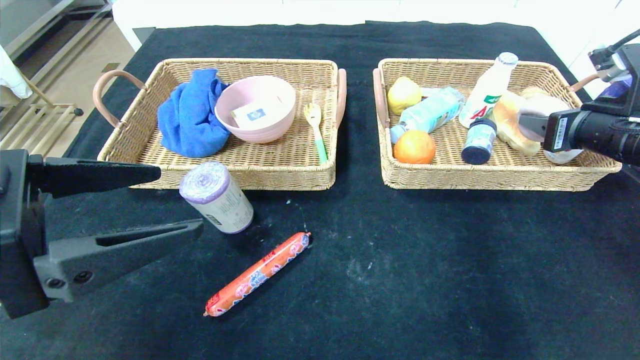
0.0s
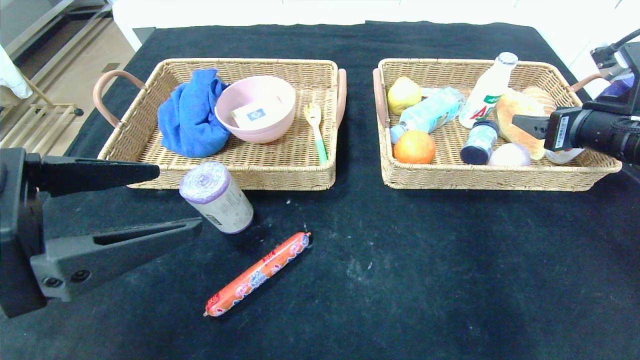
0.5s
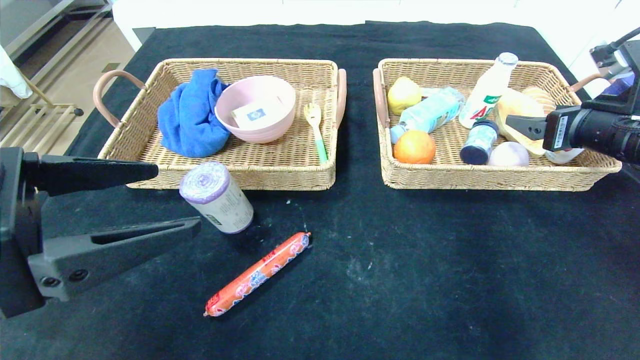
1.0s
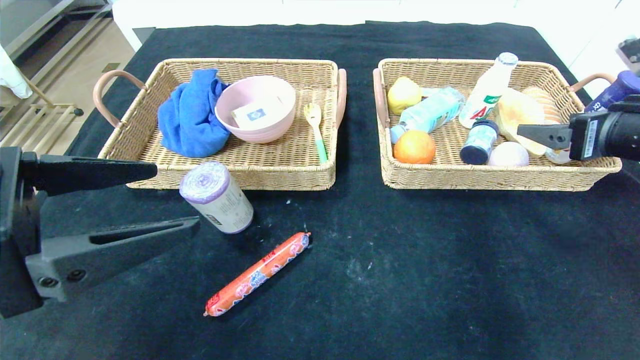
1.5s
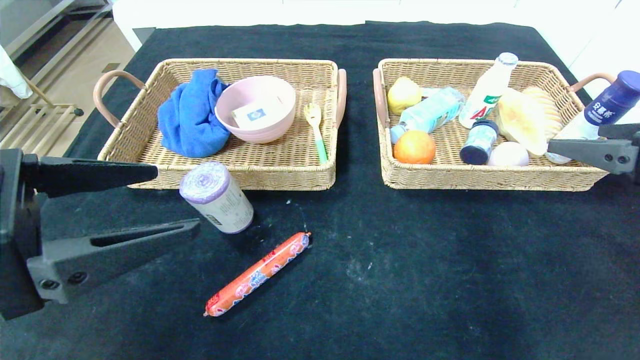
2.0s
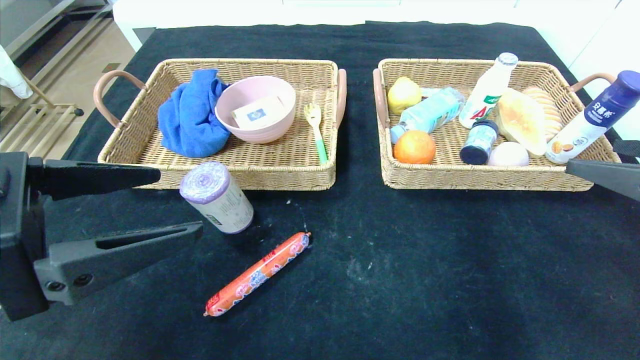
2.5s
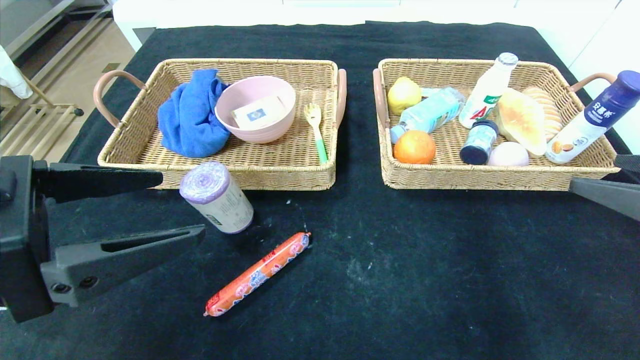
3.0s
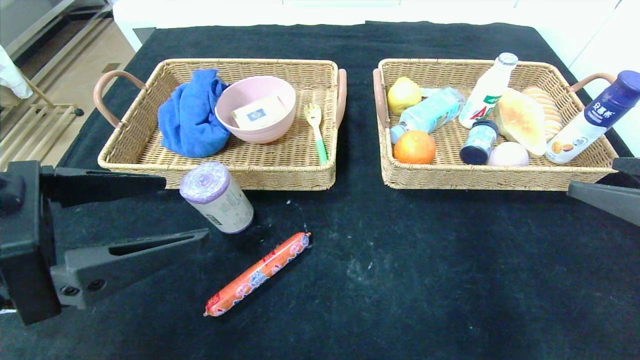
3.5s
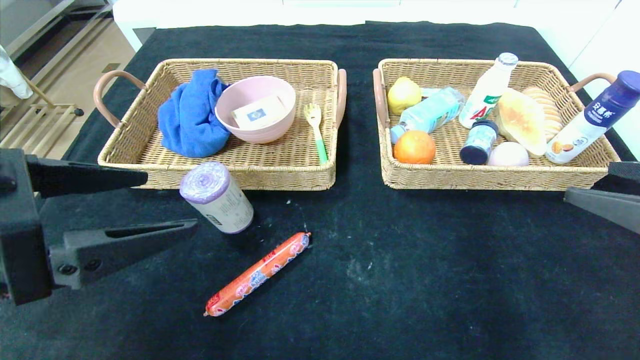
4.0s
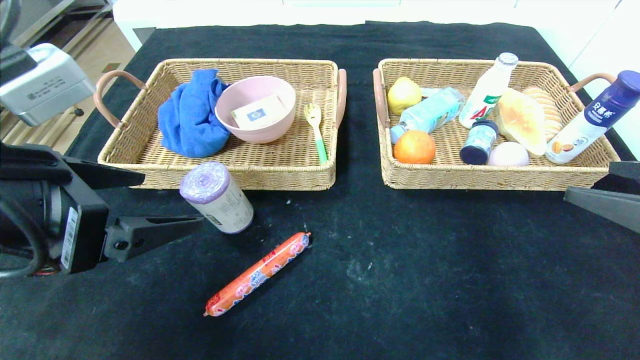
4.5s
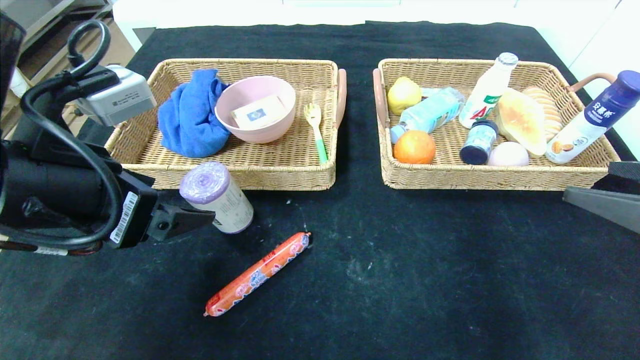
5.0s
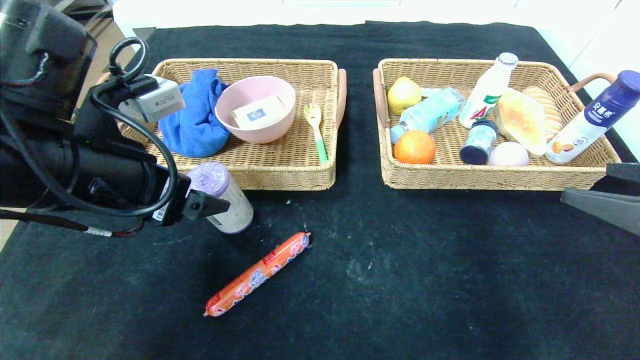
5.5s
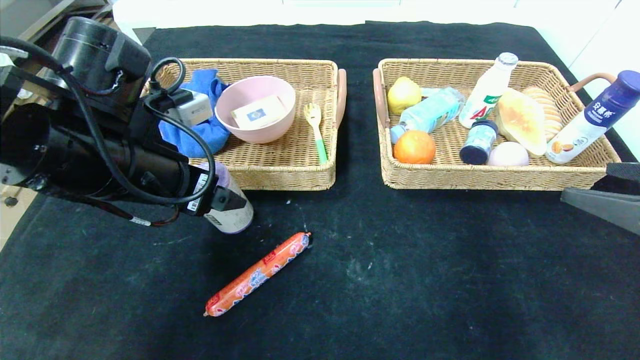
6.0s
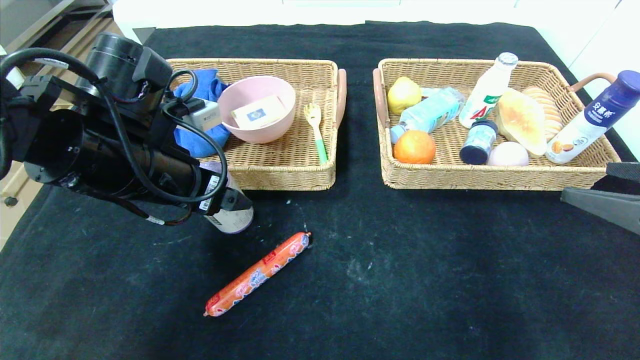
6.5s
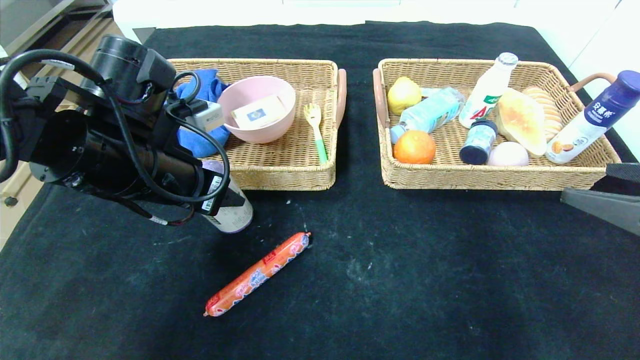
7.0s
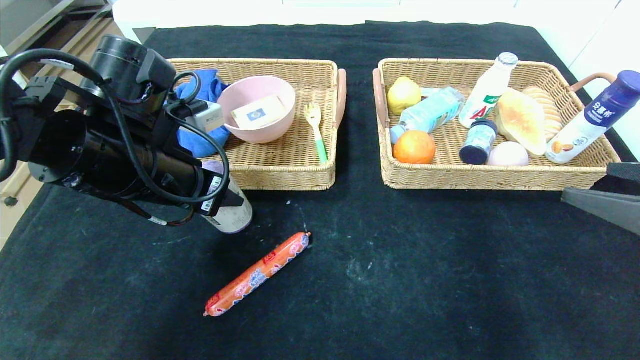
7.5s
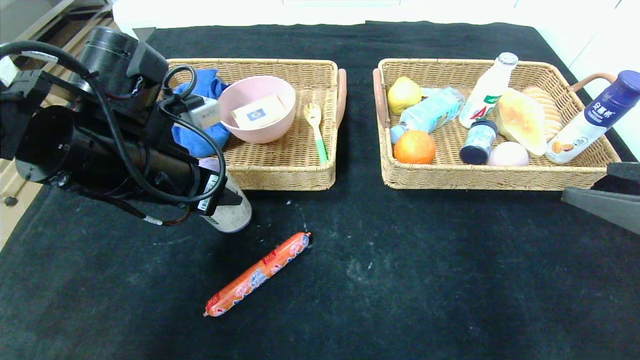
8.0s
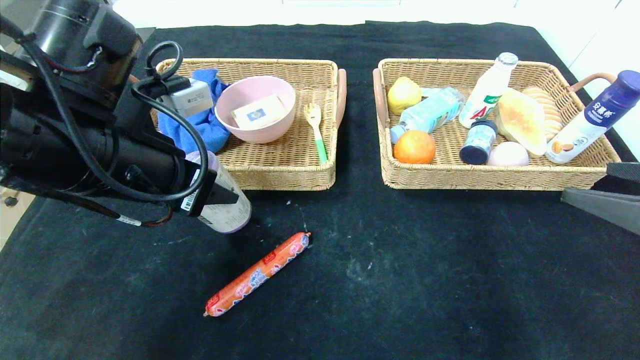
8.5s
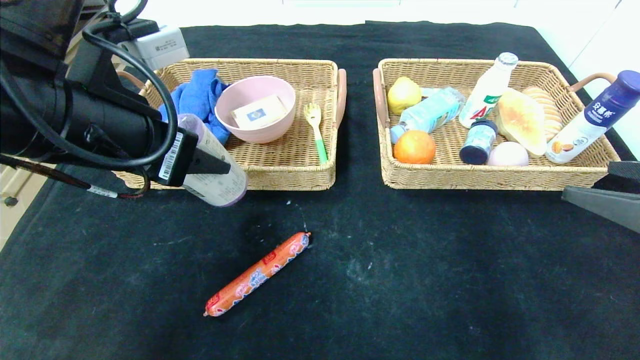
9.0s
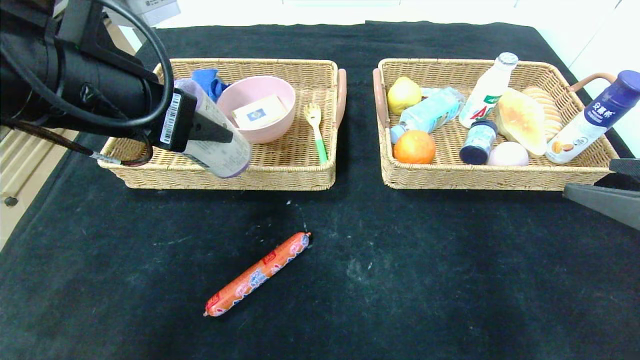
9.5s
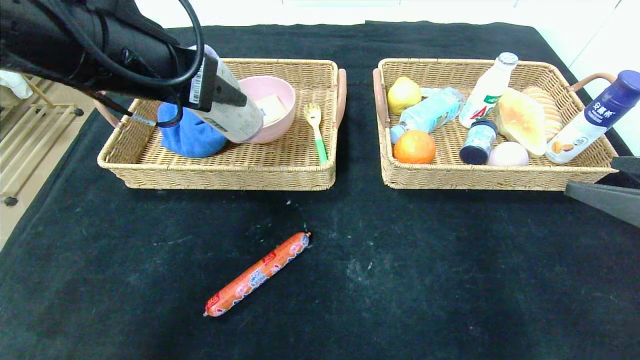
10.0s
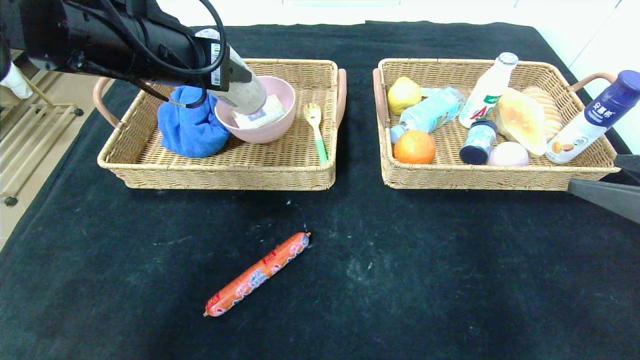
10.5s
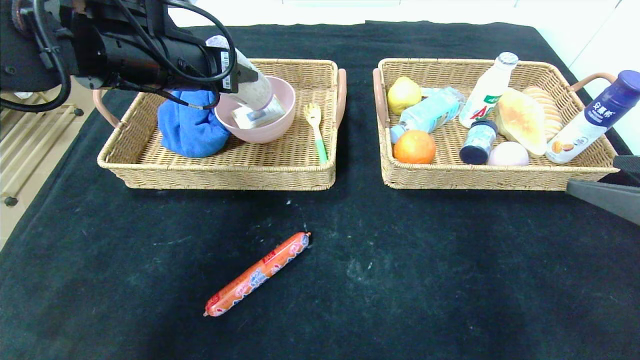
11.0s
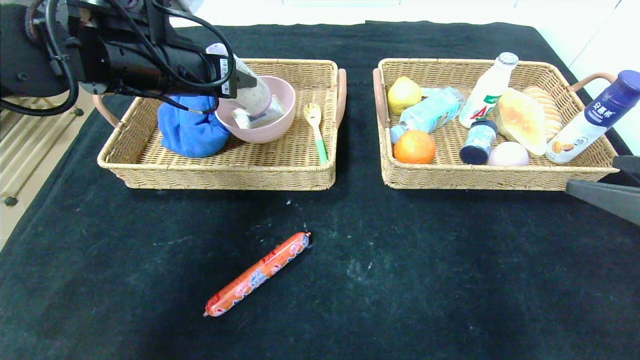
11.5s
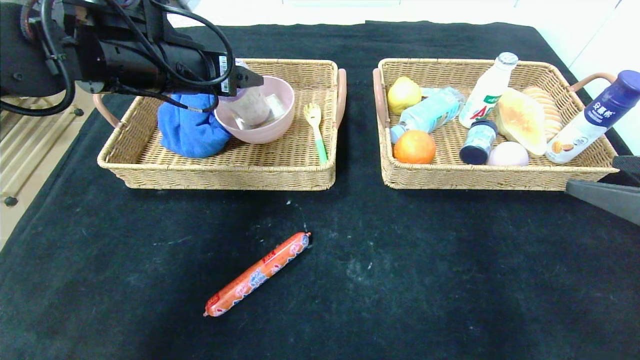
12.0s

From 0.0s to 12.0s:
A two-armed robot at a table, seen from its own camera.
From 0.0s to 2.0s: The right gripper is displaced backward by about 10 cm, and opens up.
From 2.0s to 4.0s: The right gripper ends up roughly 5 cm from where it was.
From 4.0s to 6.0s: The left gripper heads forward, covering approximately 15 cm.
From 6.0s to 8.0s: The left gripper closes up.
From 8.0s to 10.0s: The left gripper is displaced upward by roughly 10 cm.
From 10.0s to 12.0s: The left gripper goes roughly 10 cm forward.

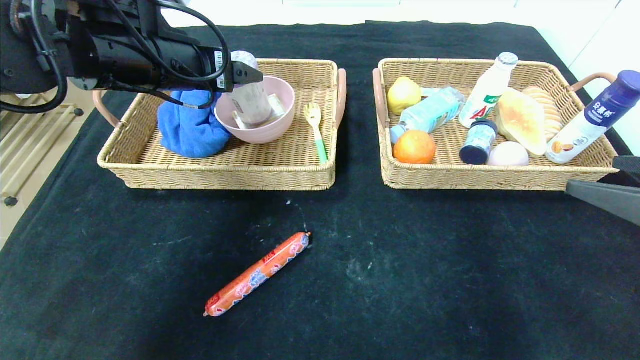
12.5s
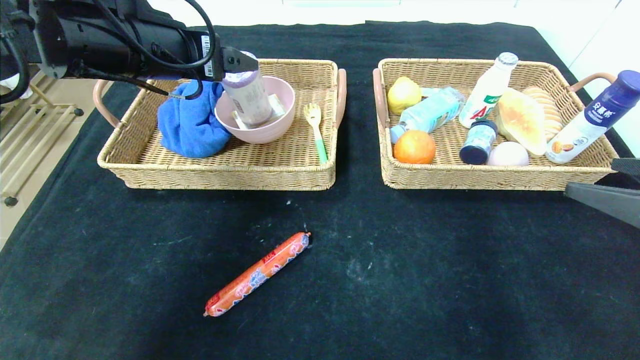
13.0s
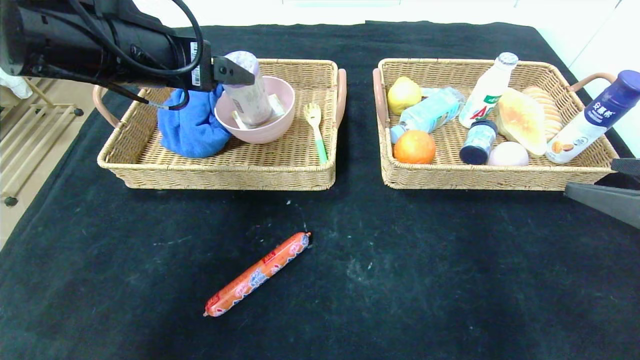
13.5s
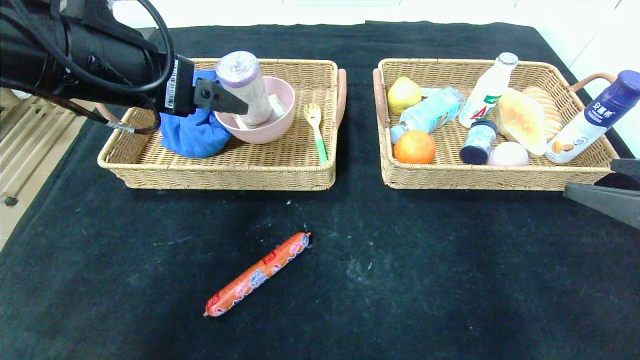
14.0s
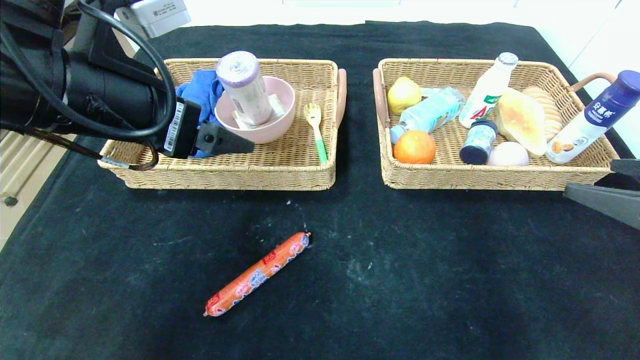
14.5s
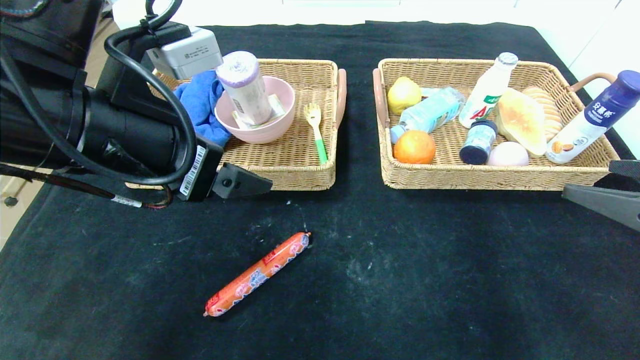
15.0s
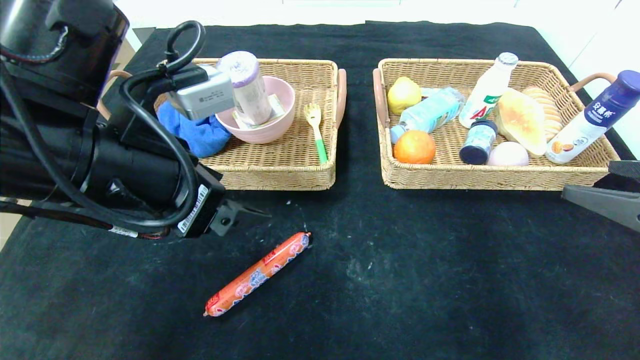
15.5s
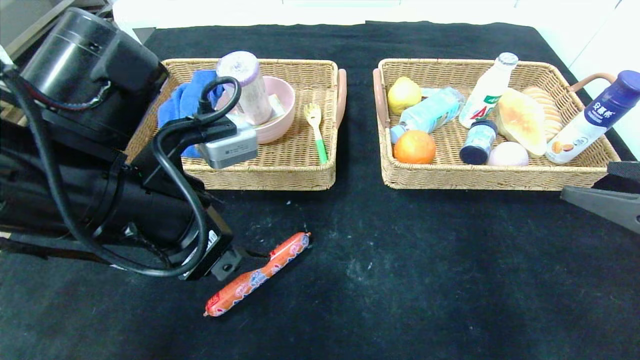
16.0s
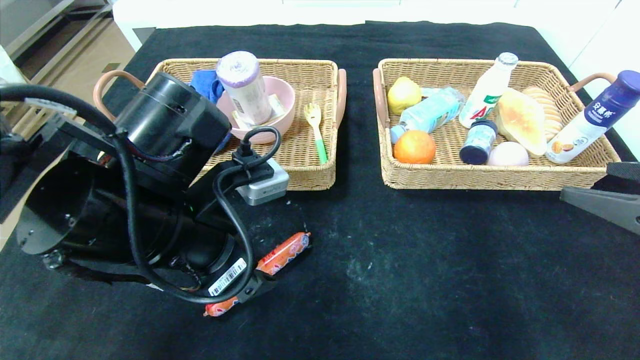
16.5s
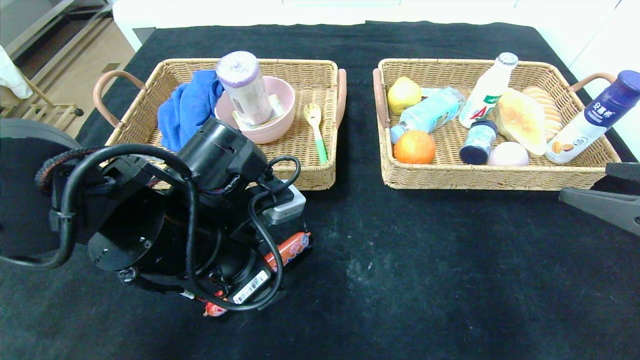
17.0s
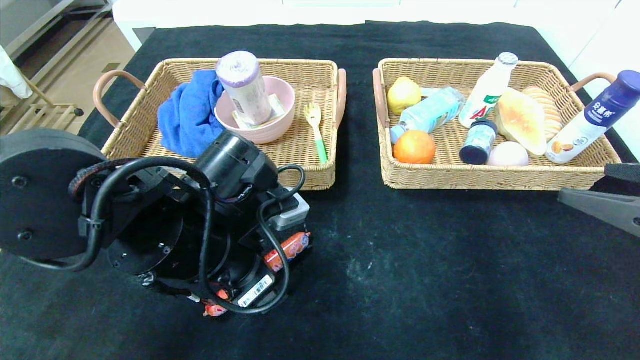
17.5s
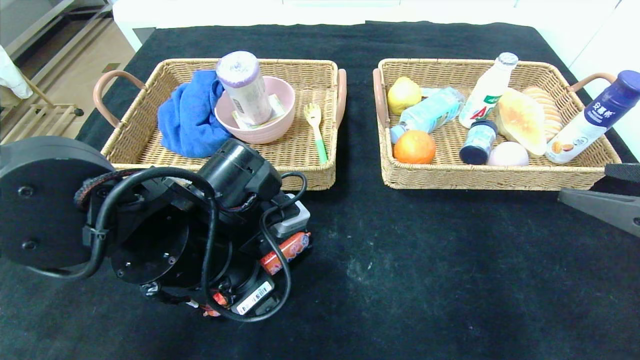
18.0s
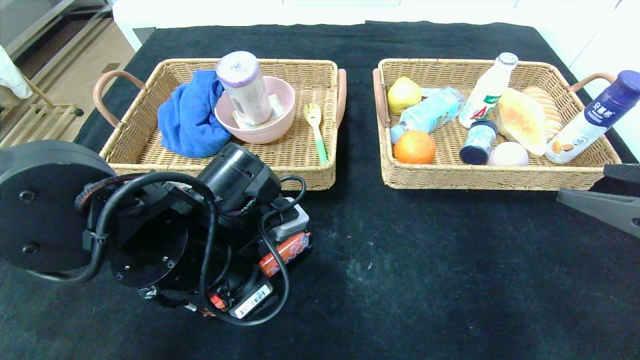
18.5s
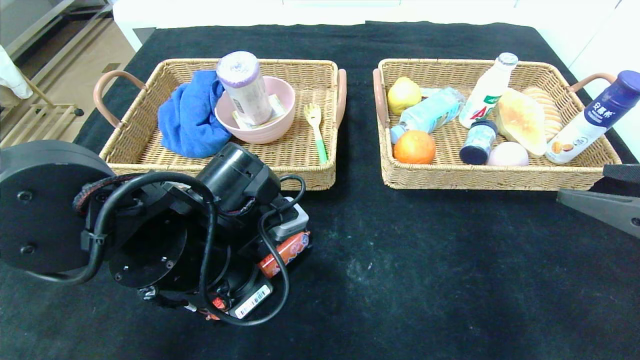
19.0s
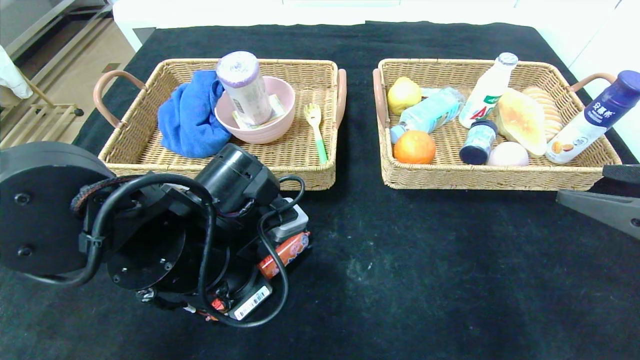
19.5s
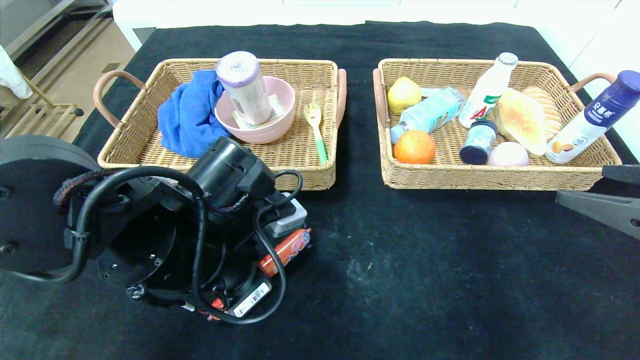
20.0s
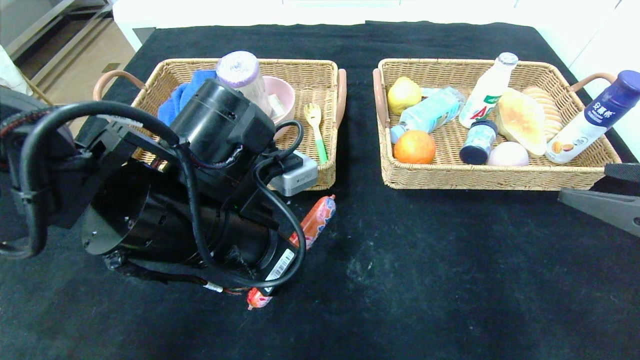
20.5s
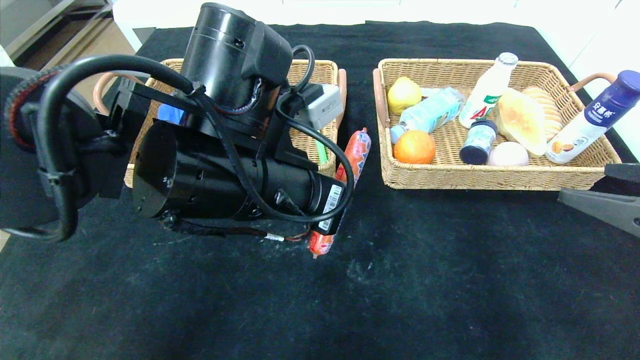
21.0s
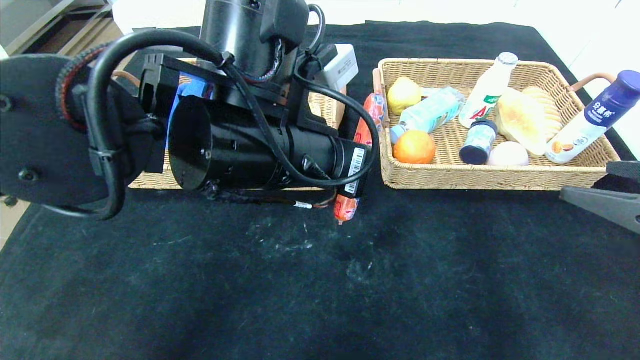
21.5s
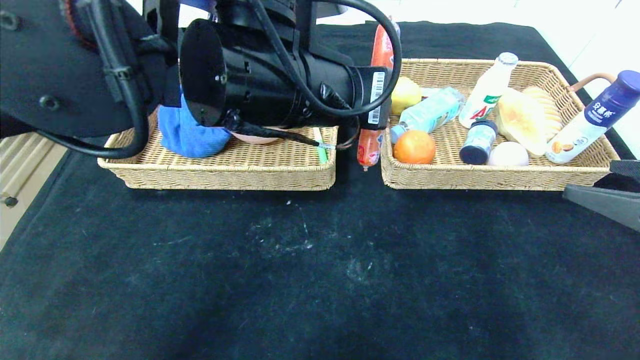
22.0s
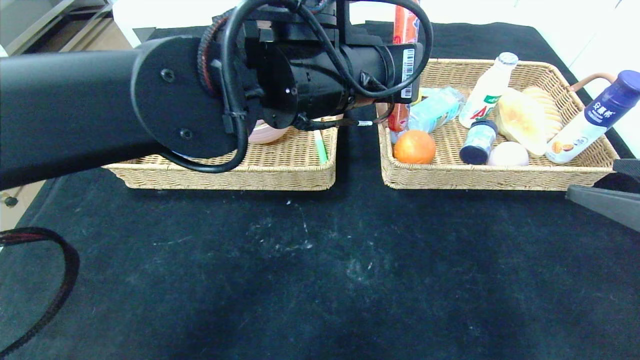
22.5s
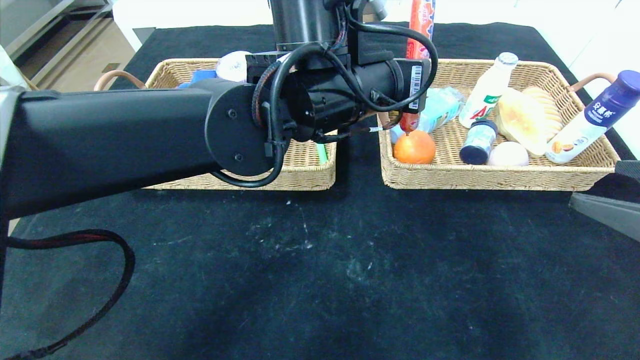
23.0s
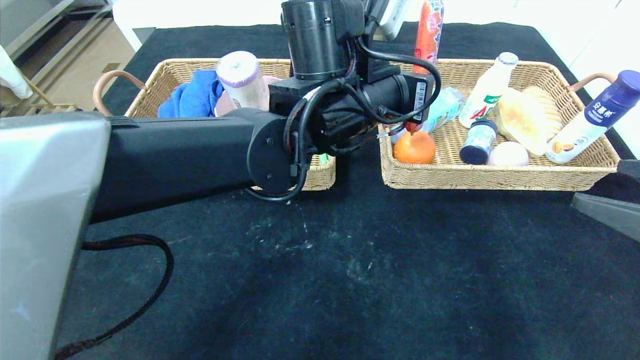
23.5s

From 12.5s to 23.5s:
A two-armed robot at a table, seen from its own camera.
From 12.5s to 14.5s: The left gripper moves backward, roughly 10 cm.
From 14.5s to 16.0s: The left gripper goes roughly 5 cm downward.
From 16.0s to 18.0s: The left gripper travels downward by approximately 10 cm.
From 18.0s to 20.0s: The left gripper closes.
From 20.0s to 21.5s: The left gripper moves upward and to the right, some 10 cm.
From 21.5s to 23.5s: The left gripper moves forward and to the right, about 10 cm.
